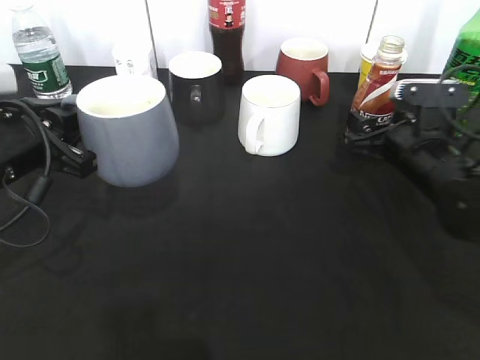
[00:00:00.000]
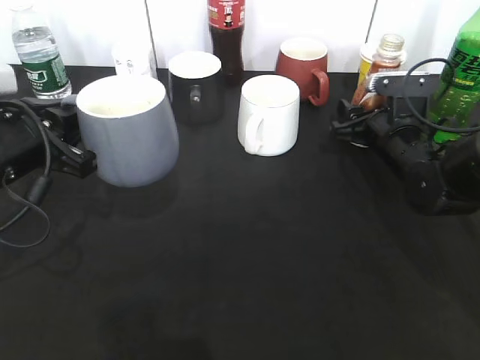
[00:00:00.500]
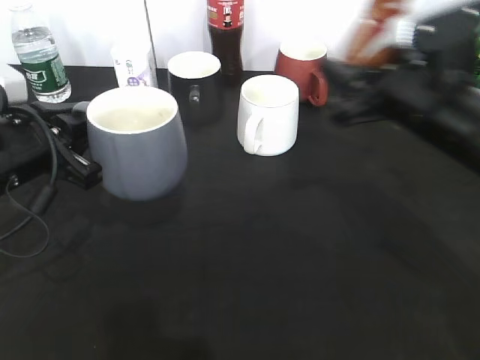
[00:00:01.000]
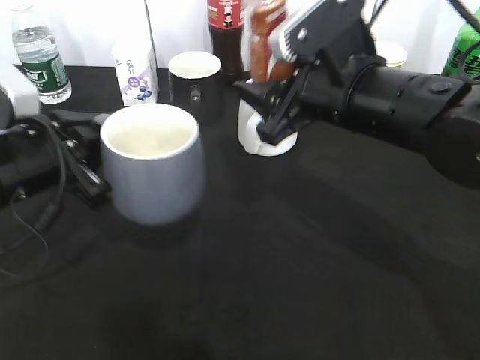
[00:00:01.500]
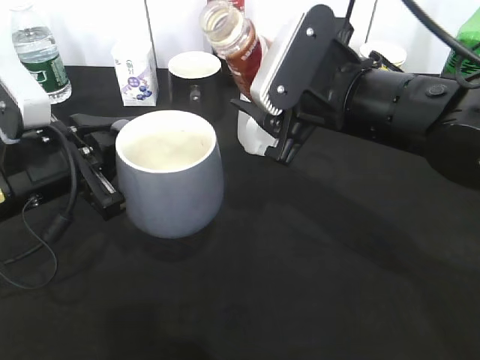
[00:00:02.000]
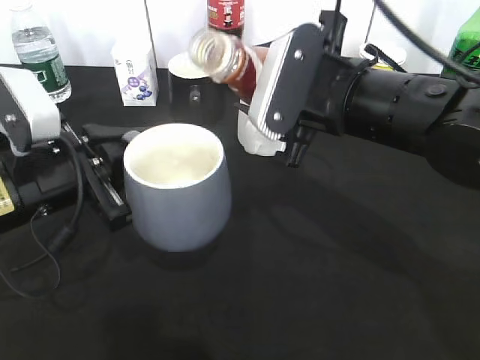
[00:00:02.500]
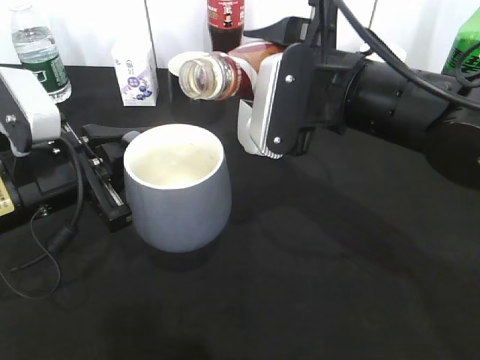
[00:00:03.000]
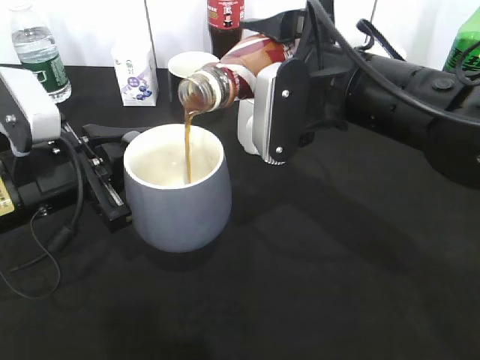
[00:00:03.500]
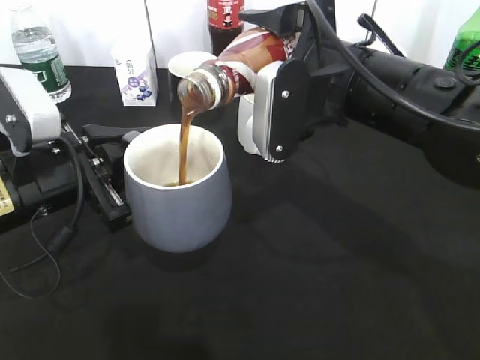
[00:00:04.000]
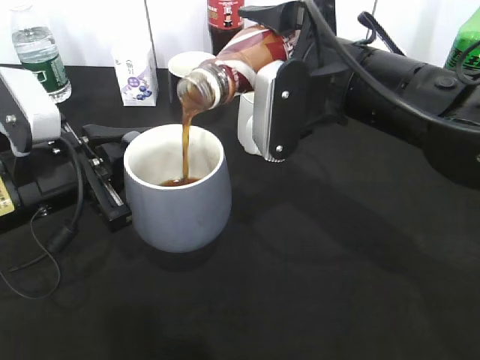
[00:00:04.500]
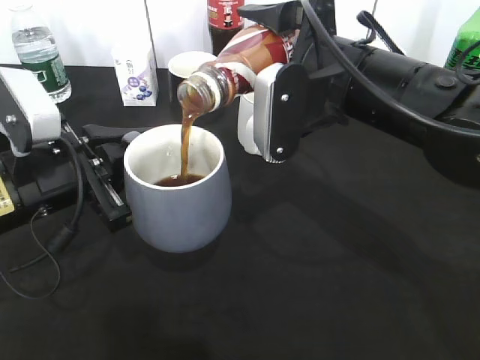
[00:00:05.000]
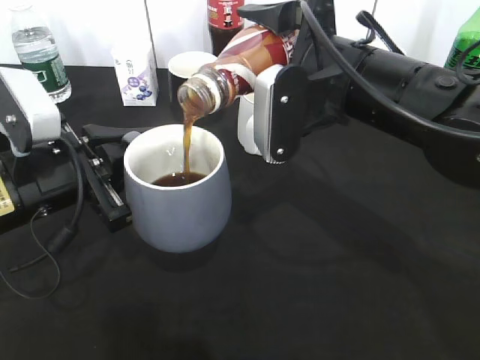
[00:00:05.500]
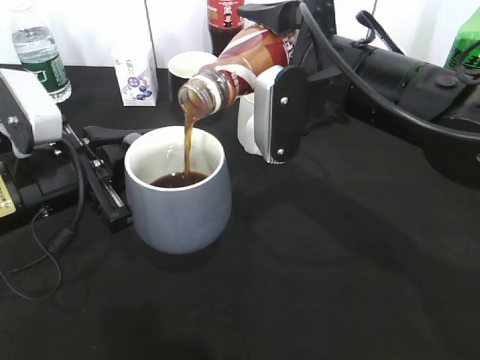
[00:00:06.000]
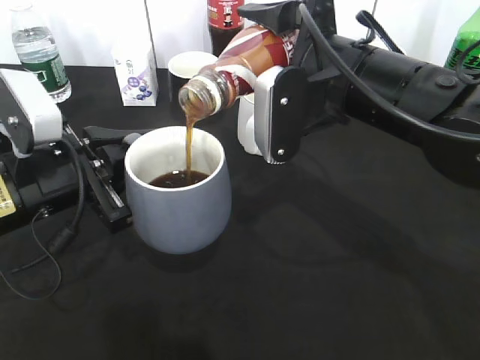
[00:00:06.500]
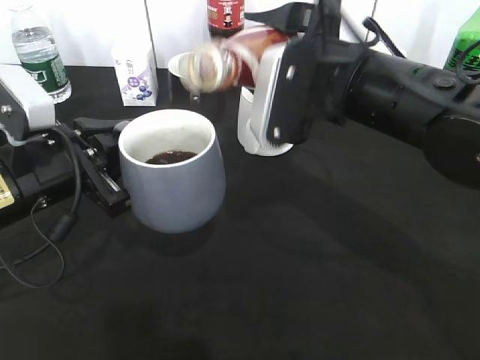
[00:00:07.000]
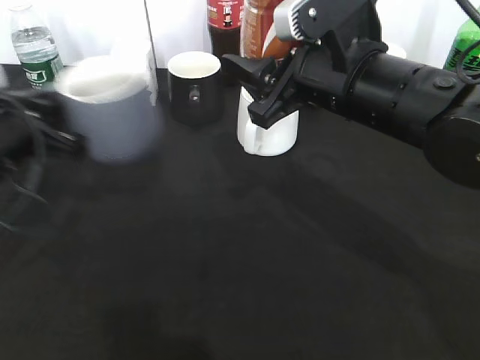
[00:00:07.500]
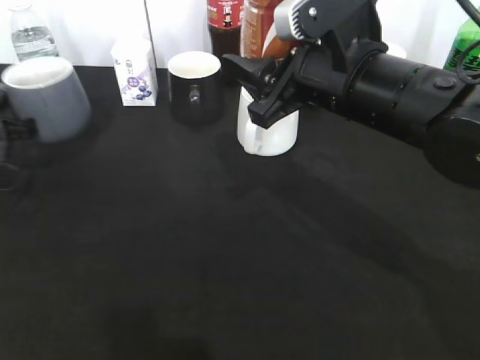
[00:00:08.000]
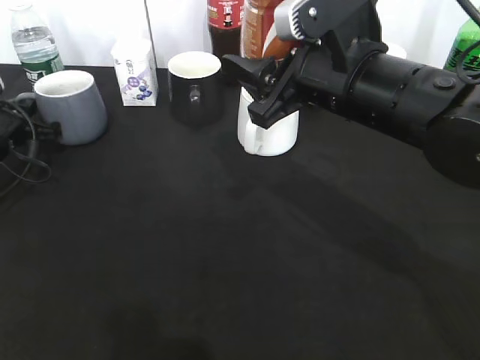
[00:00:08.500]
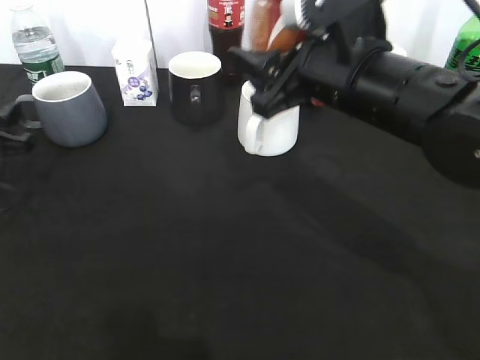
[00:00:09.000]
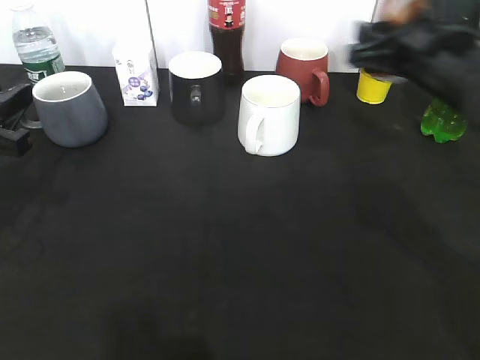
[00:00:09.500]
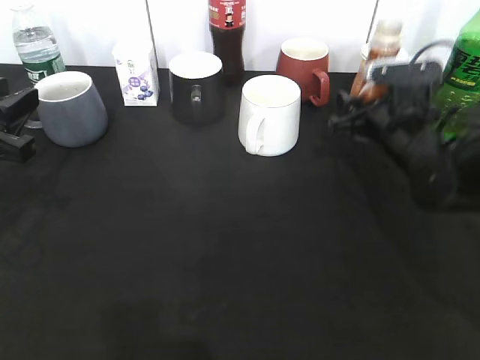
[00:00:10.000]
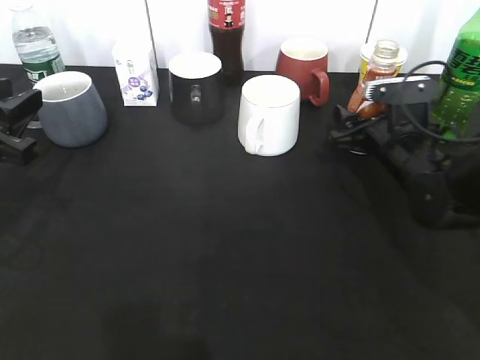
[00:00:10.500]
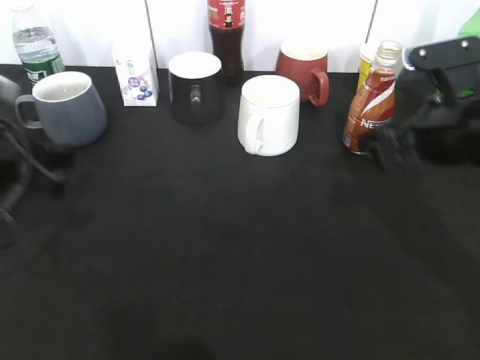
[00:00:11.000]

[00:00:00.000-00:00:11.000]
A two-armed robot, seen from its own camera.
Step, 00:00:01.000 to 00:00:06.500: Pour the coffee from bottle to cup with right gripper.
Step, 00:00:07.500 to 00:00:09.000: Place the grey cup on the table with left gripper.
00:00:00.000 to 00:00:02.000: The right gripper shifts roughly 20 cm to the left, upward and backward, and closes.
00:00:03.500 to 00:00:05.500: The grippers make only small movements.
00:00:05.500 to 00:00:07.500: The left gripper heads to the left, covering approximately 5 cm.
00:00:07.500 to 00:00:09.000: The left gripper goes approximately 5 cm to the left, reaches some 10 cm forward, then returns, and opens up.
00:00:09.000 to 00:00:11.000: The right gripper heads to the right, covering some 10 cm, travels downward and back again, some 15 cm each way, and opens its fingers. The left gripper shifts roughly 10 cm to the right and backward.

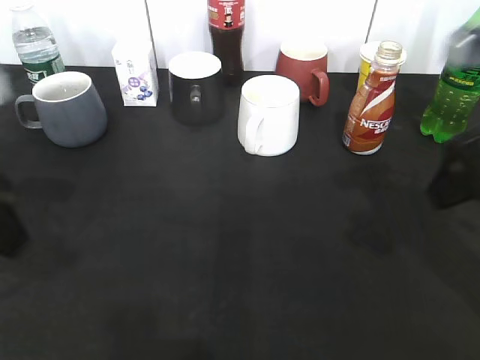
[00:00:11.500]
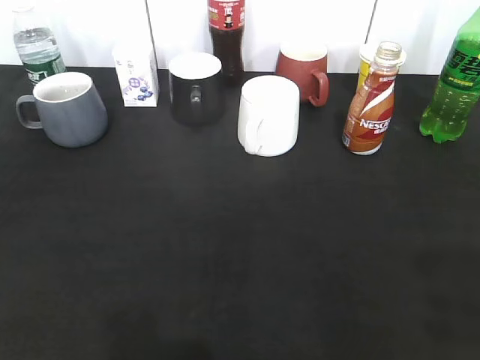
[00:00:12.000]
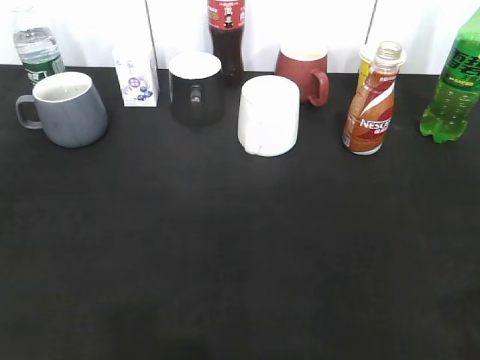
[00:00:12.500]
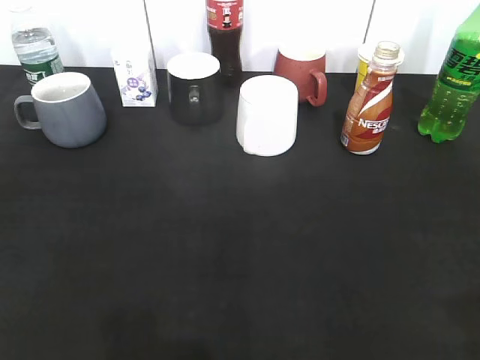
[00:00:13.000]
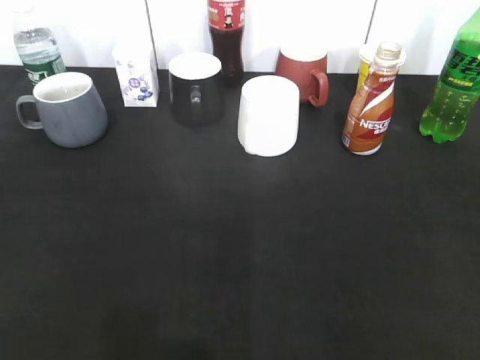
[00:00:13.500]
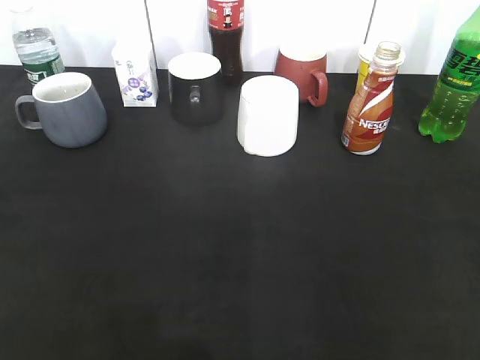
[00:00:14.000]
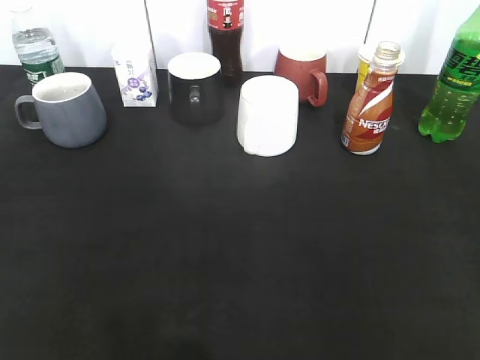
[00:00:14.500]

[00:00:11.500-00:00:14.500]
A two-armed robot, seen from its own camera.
00:00:11.500 to 00:00:13.000: The right gripper is displaced backward and to the right by approximately 20 cm. The left gripper heads backward and to the left, covering roughly 20 cm.
